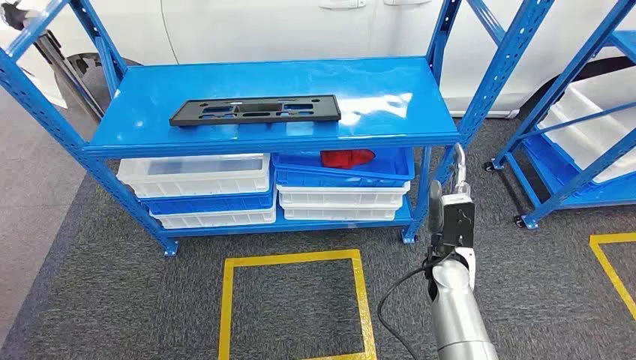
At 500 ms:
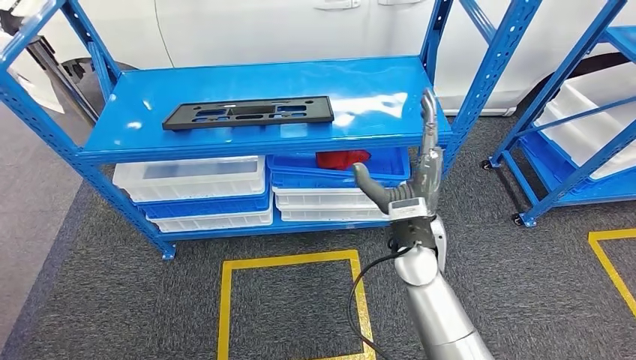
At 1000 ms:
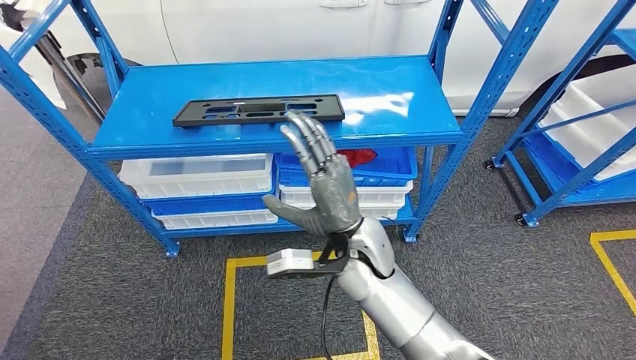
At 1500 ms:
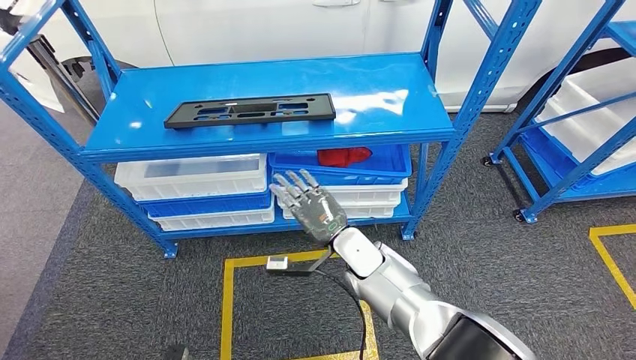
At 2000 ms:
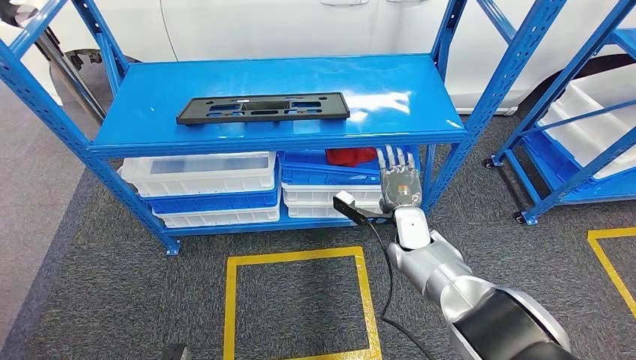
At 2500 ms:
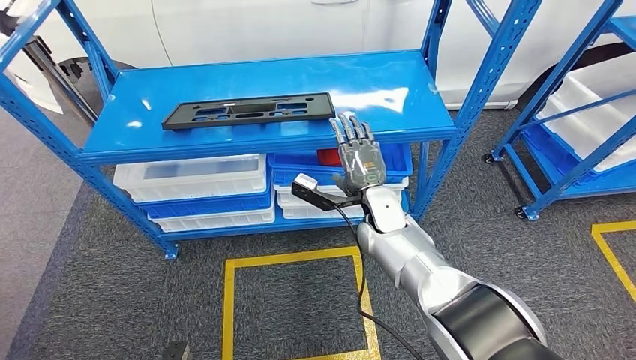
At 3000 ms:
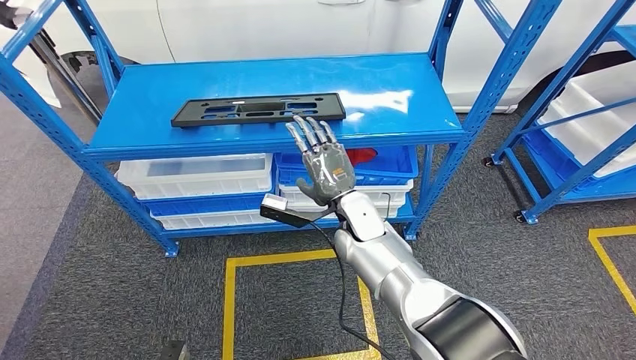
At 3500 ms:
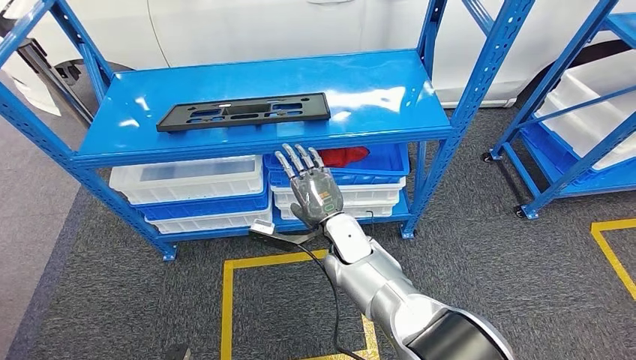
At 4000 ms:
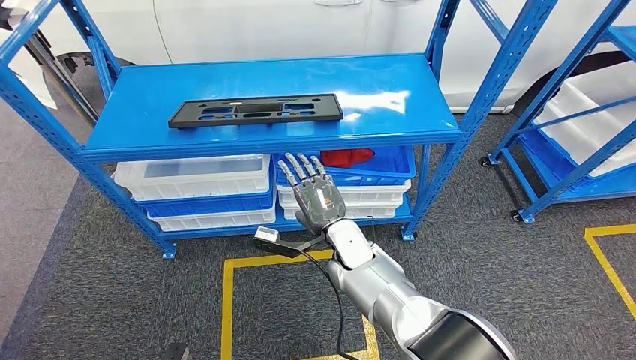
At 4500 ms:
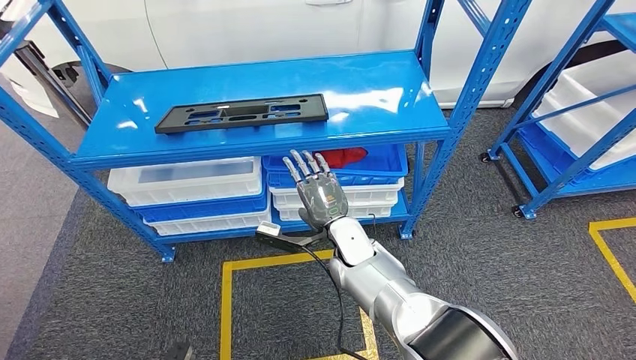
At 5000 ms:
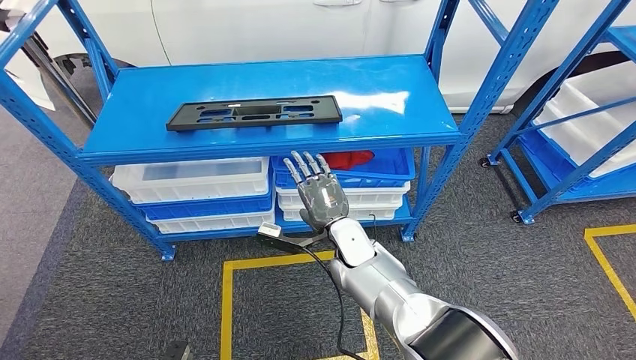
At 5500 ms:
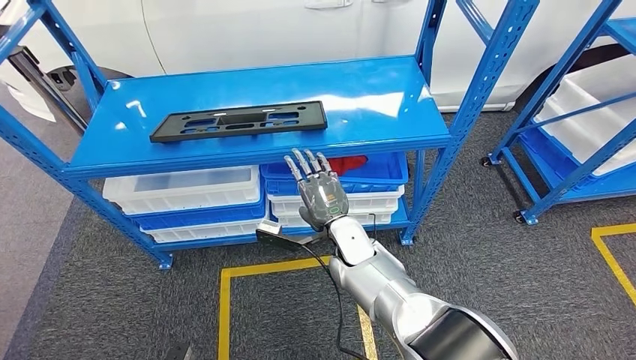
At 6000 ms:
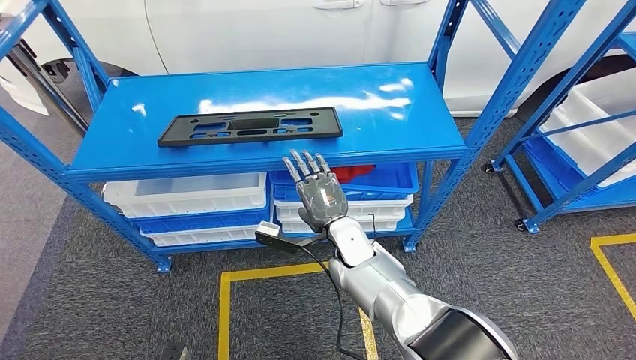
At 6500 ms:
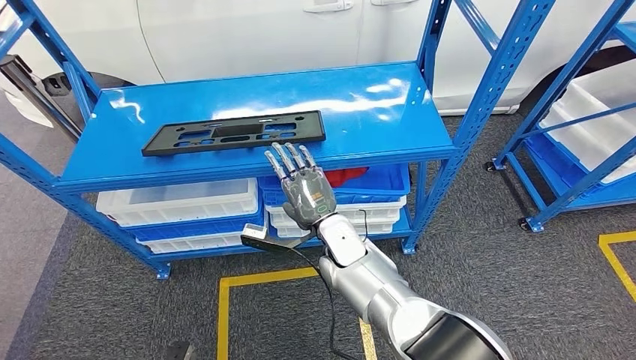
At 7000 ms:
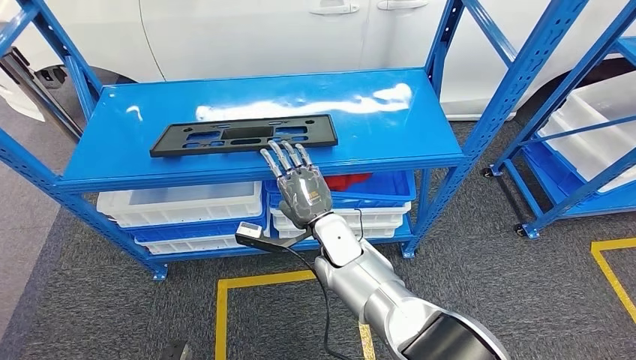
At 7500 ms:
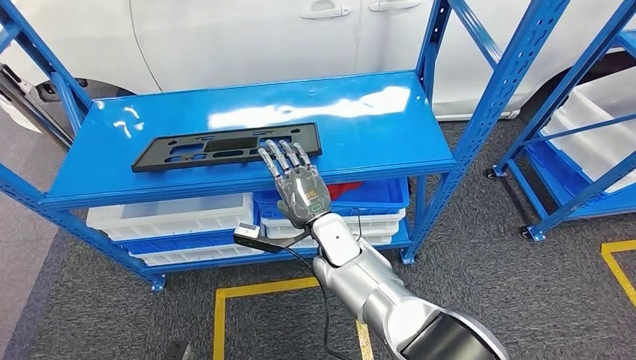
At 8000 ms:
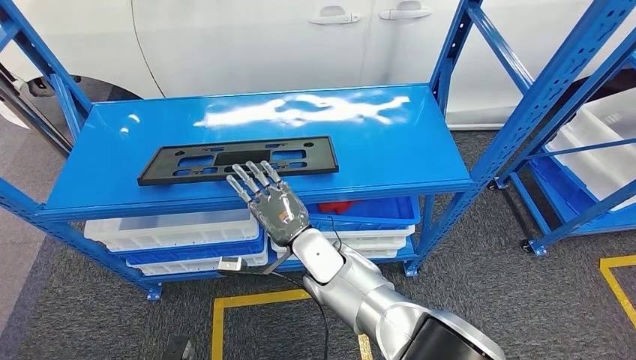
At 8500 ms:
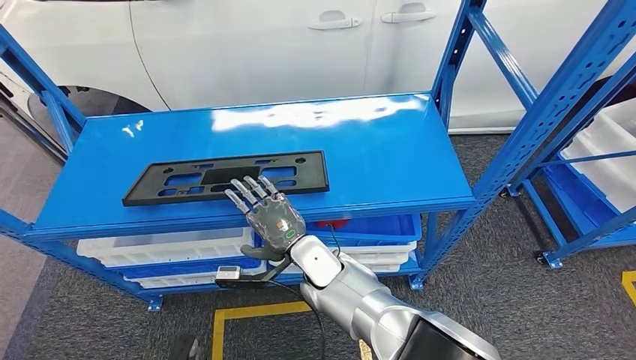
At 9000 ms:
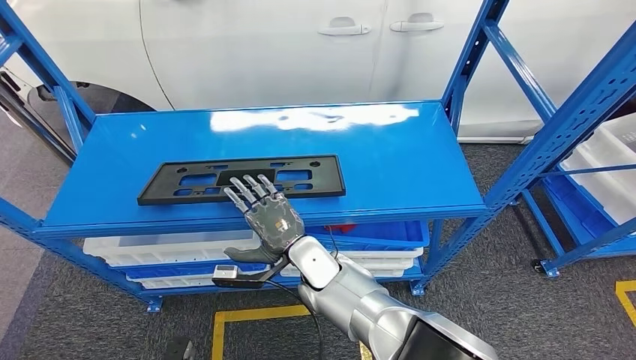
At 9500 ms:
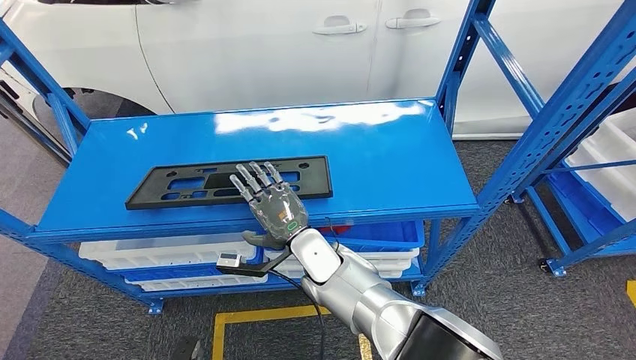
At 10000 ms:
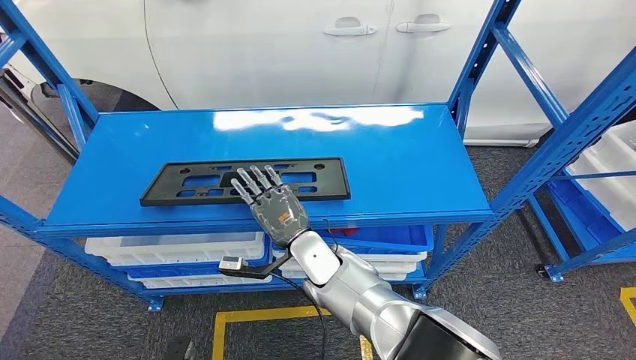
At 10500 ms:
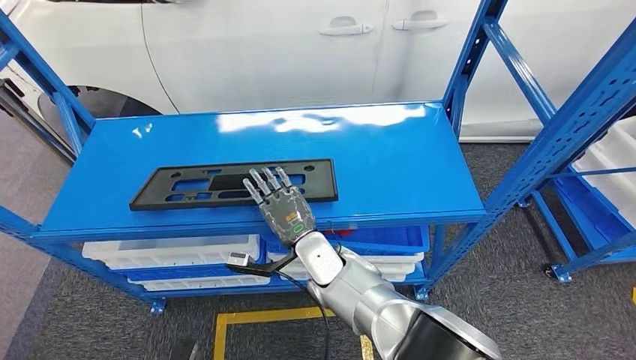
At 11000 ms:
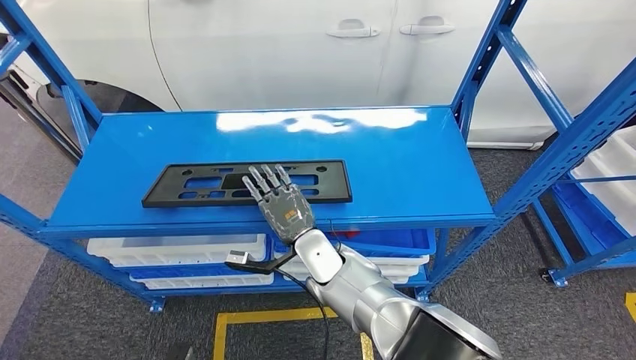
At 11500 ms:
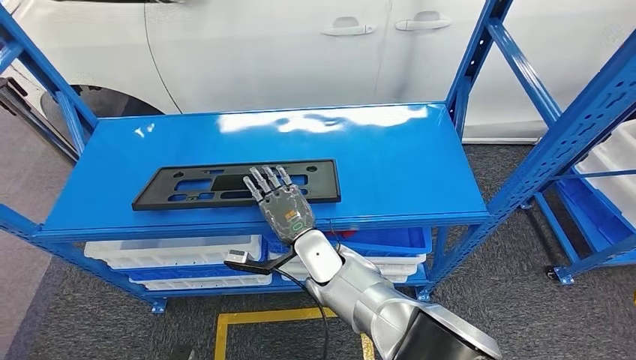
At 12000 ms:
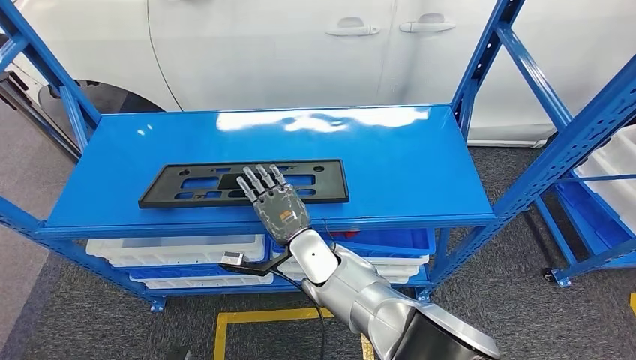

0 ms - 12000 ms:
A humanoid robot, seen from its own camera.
10000 ms - 12000 ms: The hands stay close to where they were, moving slightly.

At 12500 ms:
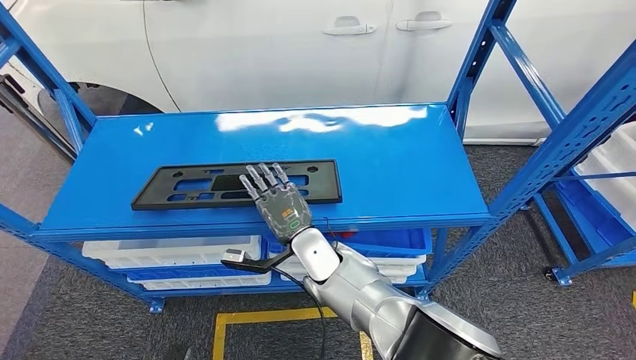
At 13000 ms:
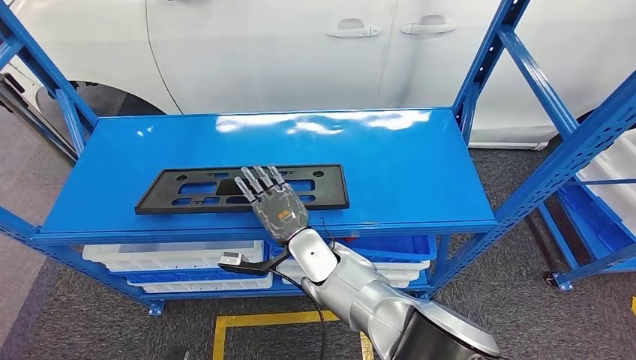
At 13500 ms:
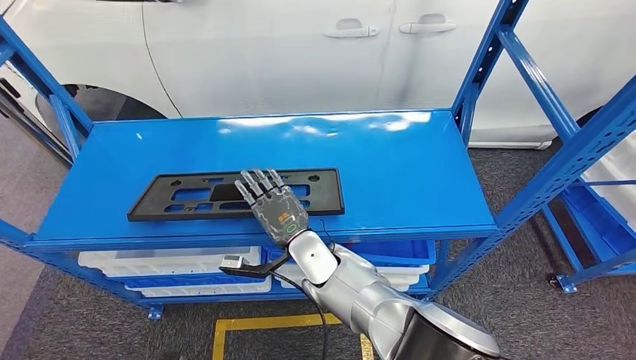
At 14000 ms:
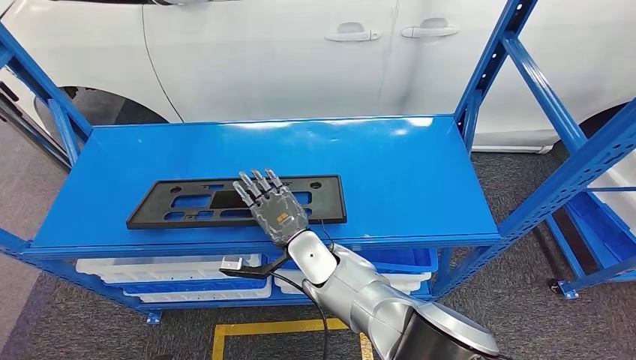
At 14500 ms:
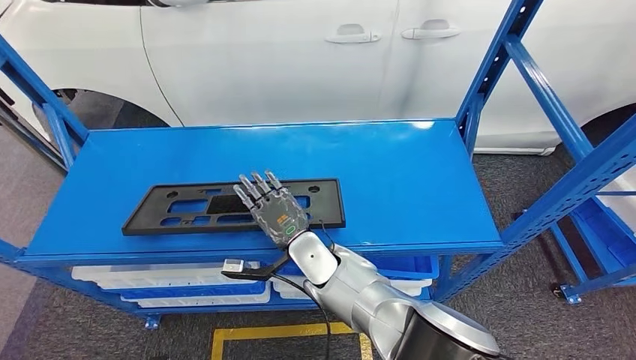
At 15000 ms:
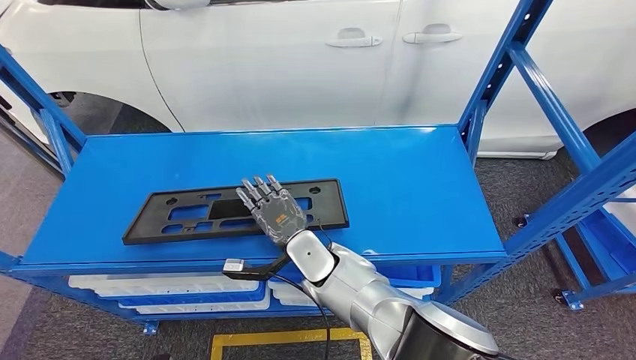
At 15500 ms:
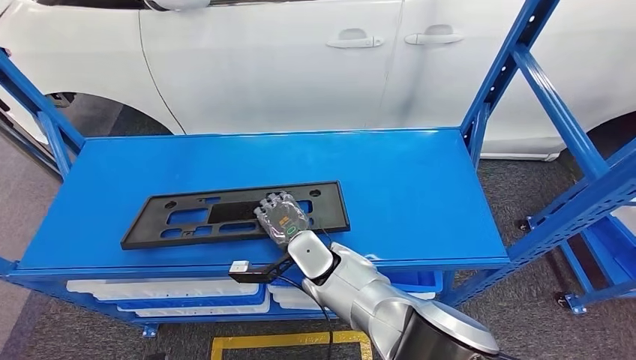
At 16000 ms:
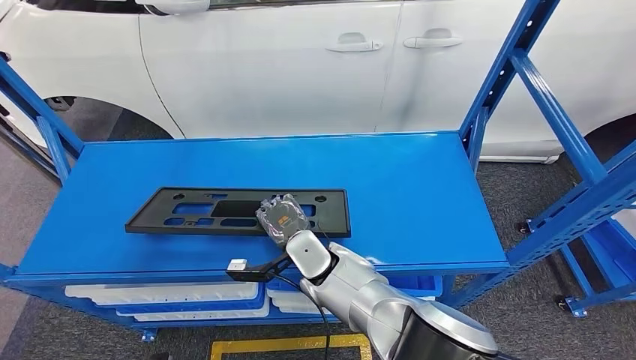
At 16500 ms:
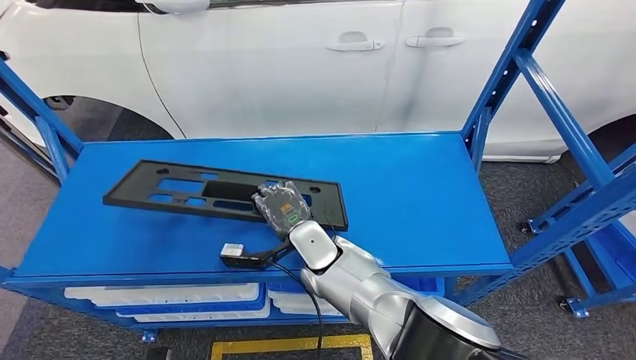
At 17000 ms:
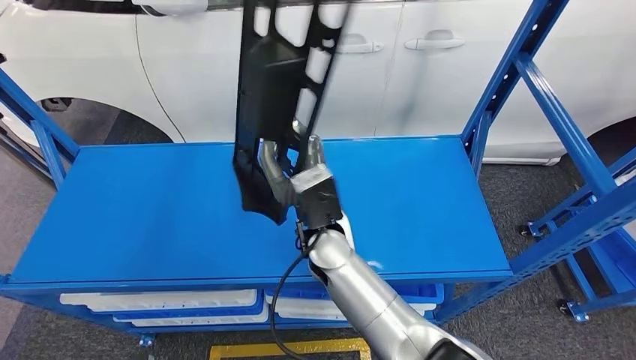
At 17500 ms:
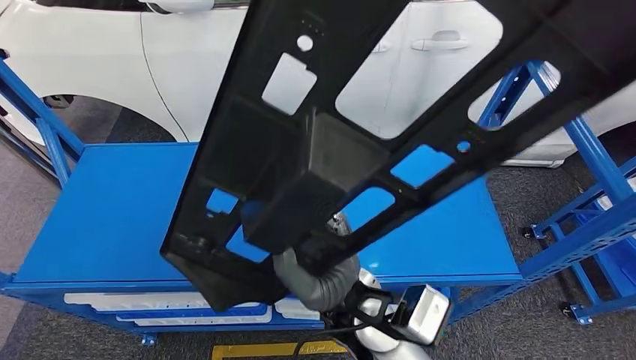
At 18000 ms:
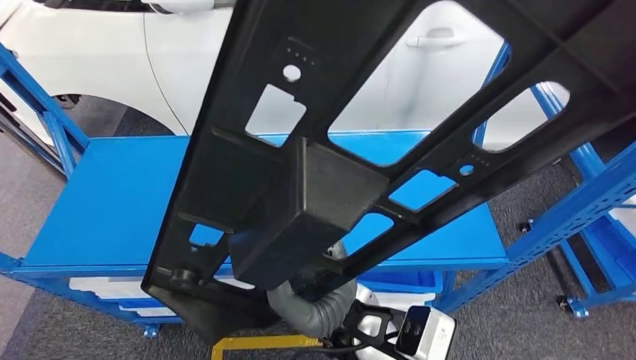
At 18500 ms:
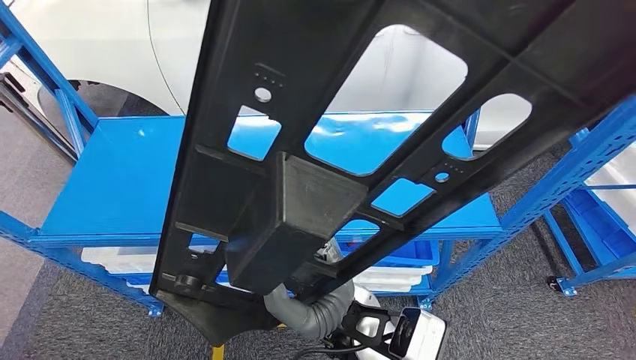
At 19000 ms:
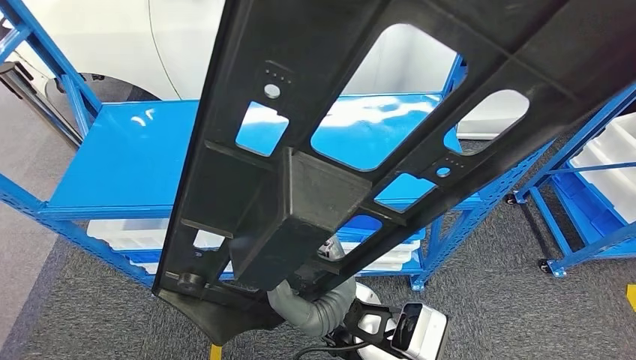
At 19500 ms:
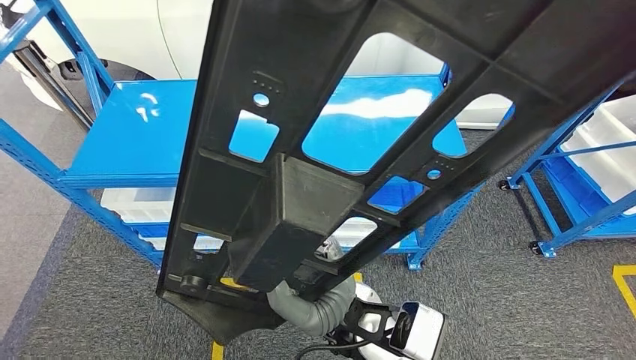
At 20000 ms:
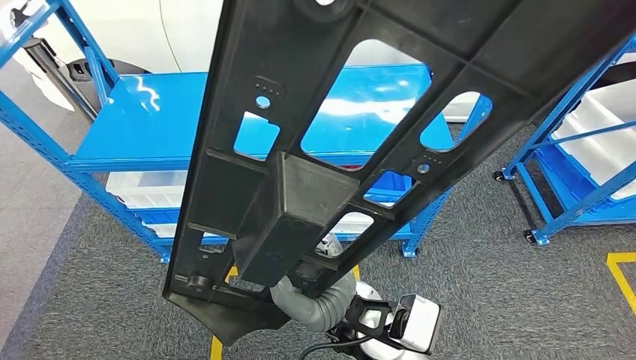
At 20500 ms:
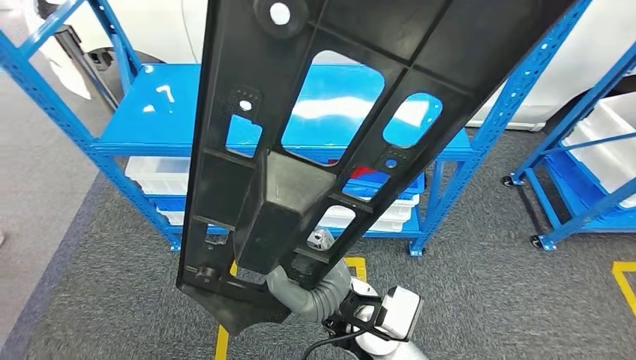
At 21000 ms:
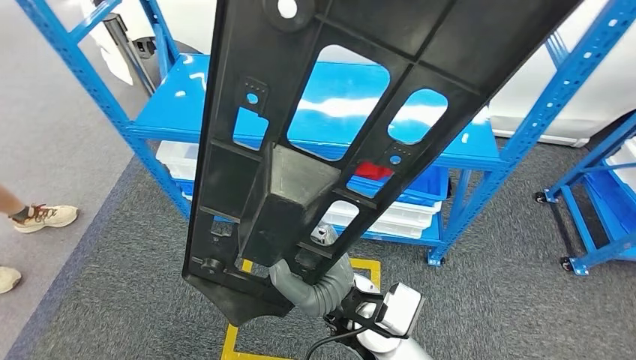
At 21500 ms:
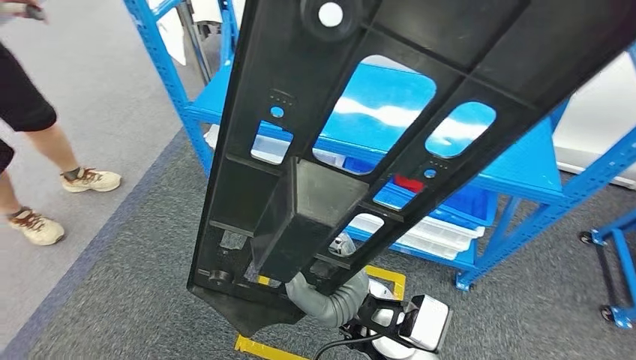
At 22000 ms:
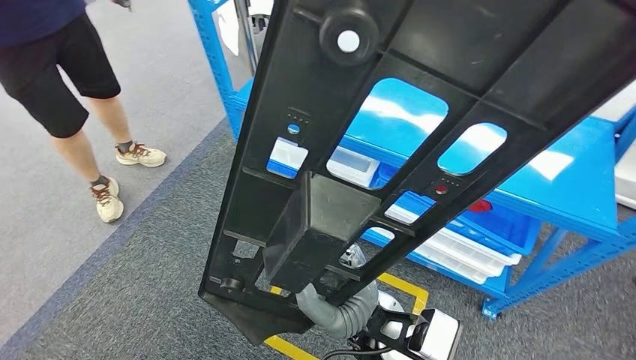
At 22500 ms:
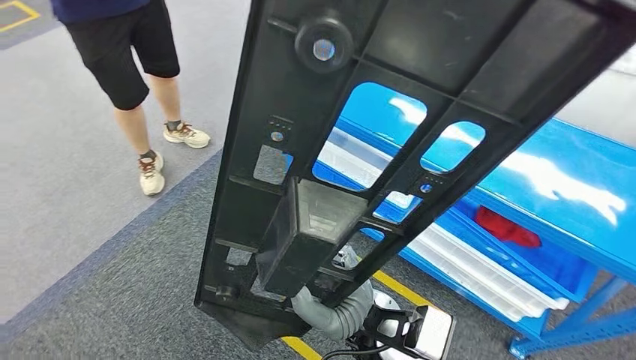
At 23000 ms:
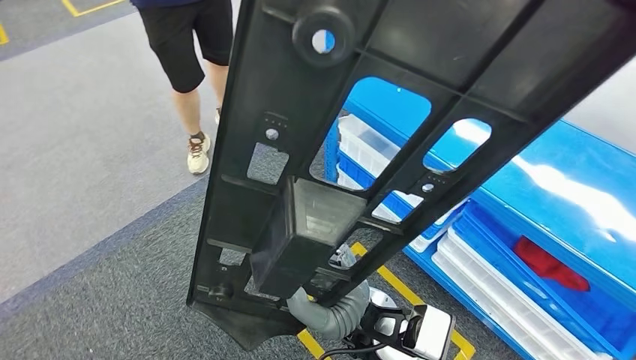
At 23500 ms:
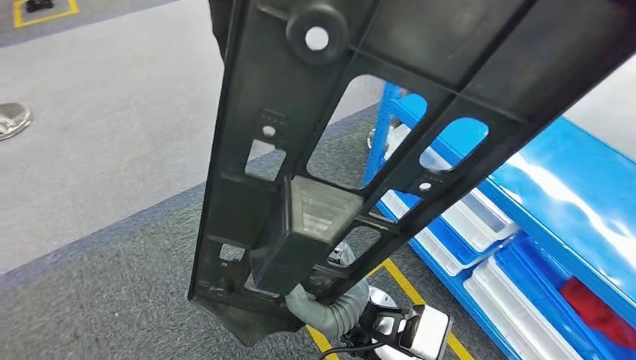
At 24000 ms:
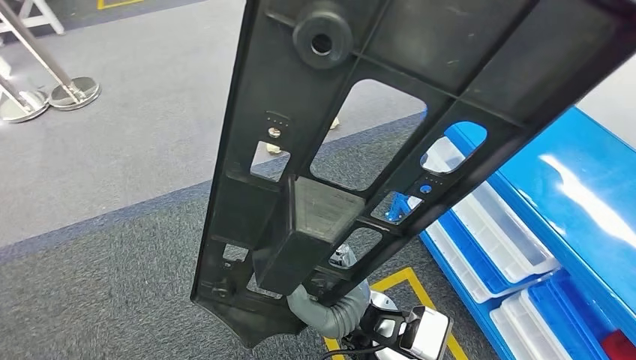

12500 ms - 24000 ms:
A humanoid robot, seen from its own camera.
Step, 12500 ms - 18000 ms: Pick up the large parts from the shelf.
